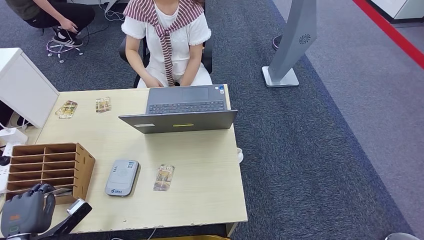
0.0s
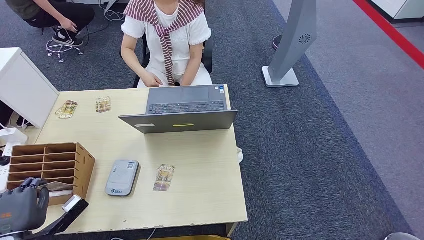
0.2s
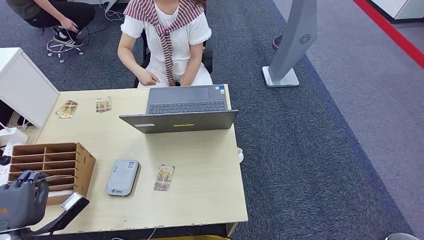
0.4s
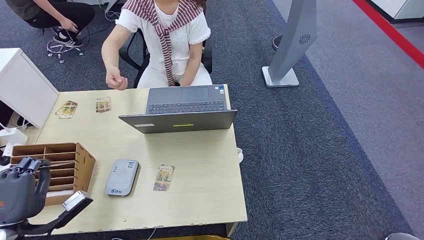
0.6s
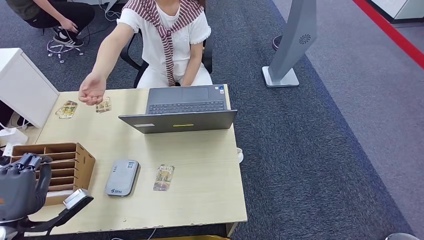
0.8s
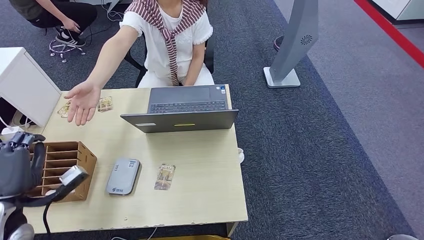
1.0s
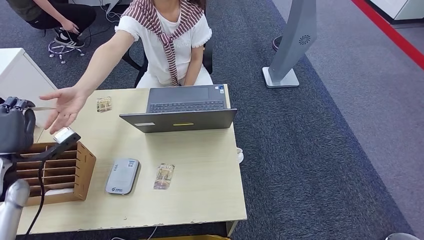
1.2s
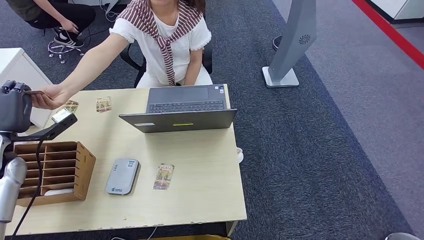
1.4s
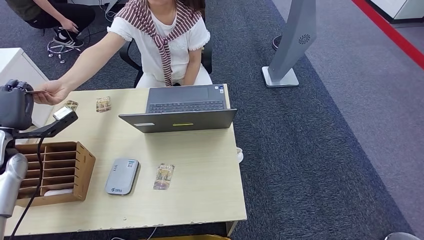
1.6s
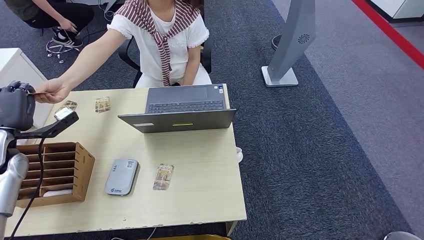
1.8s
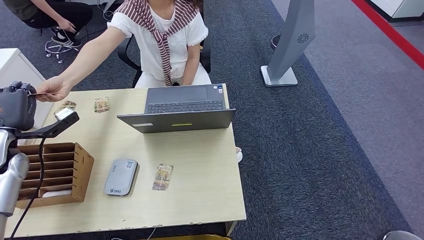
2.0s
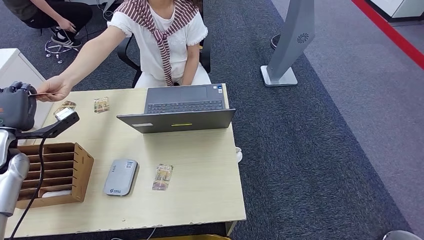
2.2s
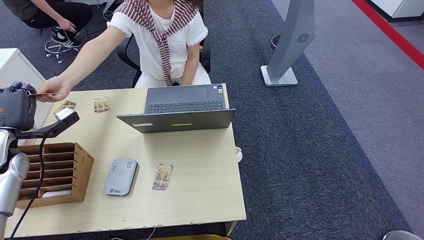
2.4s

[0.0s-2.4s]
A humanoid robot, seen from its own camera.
Step, 0.8s to 2.4s: Hand the room key to the person.
0.0s to 1.2s: The left hand shifts some 20 cm forward and upward.
1.2s to 2.4s: The left hand heads forward, covering roughly 5 cm.
